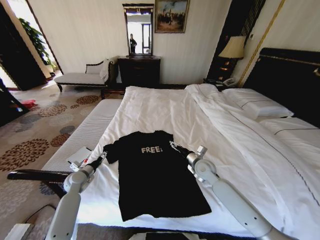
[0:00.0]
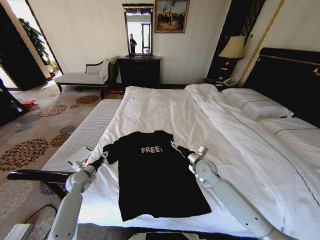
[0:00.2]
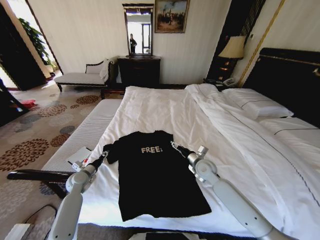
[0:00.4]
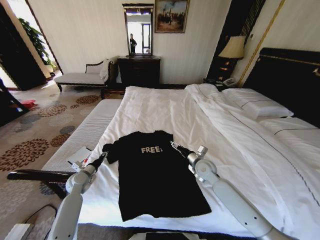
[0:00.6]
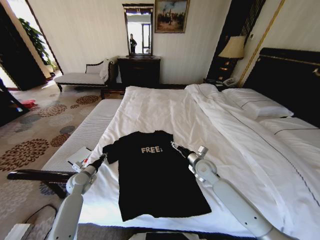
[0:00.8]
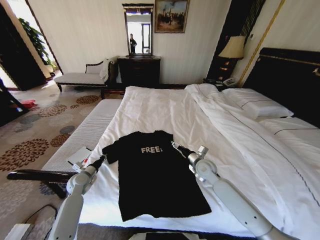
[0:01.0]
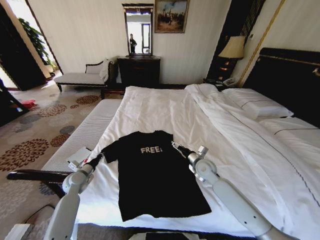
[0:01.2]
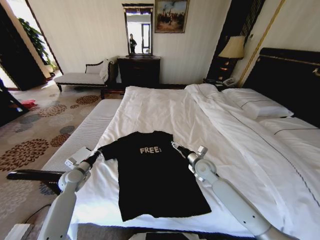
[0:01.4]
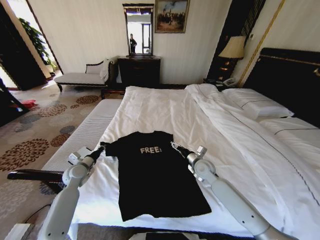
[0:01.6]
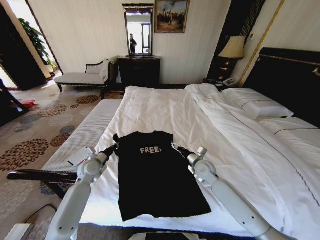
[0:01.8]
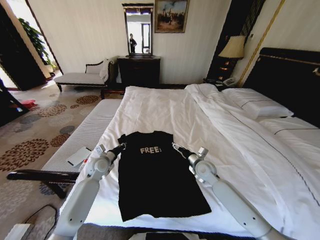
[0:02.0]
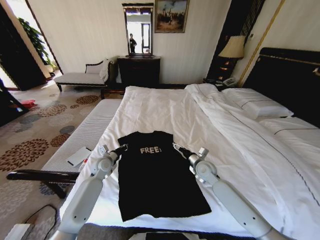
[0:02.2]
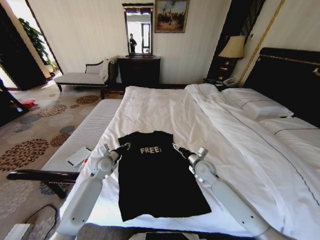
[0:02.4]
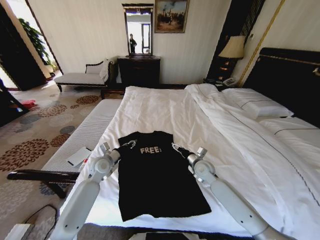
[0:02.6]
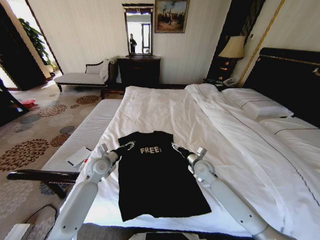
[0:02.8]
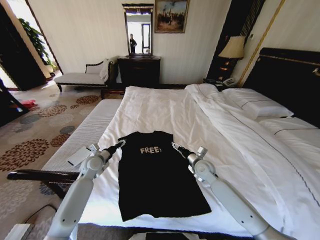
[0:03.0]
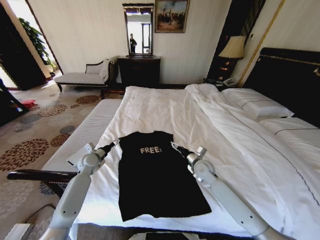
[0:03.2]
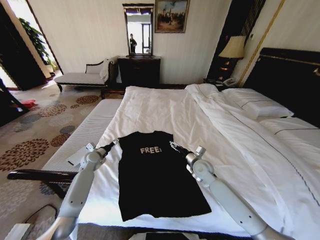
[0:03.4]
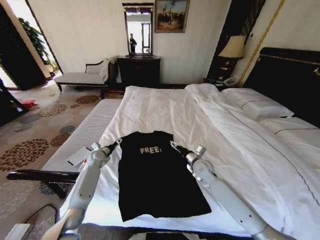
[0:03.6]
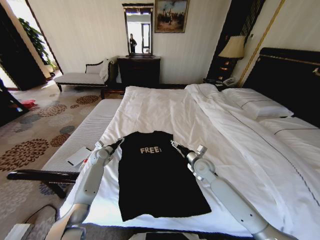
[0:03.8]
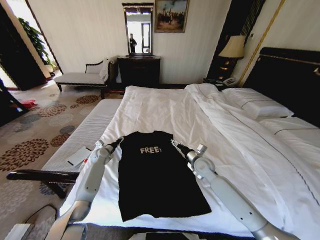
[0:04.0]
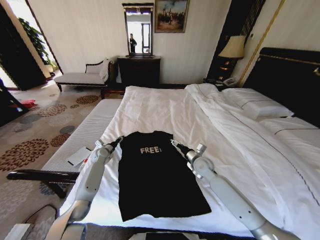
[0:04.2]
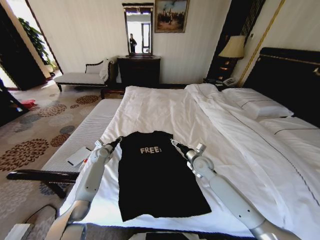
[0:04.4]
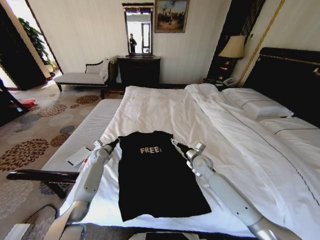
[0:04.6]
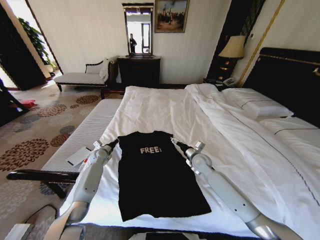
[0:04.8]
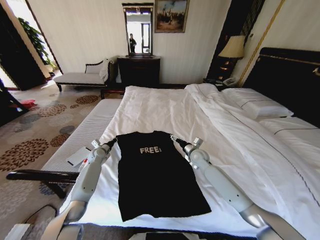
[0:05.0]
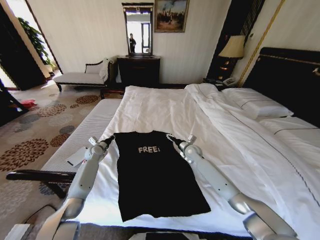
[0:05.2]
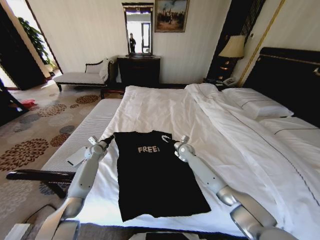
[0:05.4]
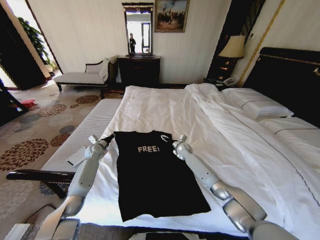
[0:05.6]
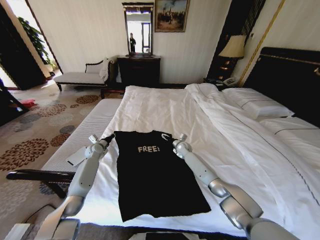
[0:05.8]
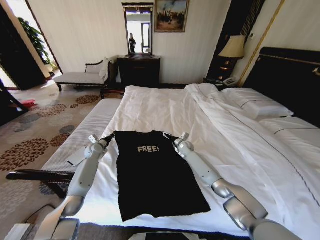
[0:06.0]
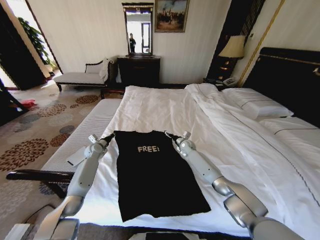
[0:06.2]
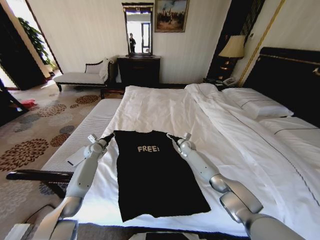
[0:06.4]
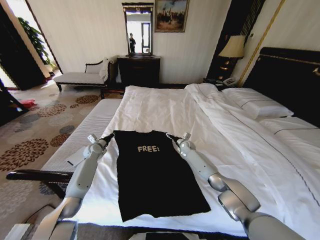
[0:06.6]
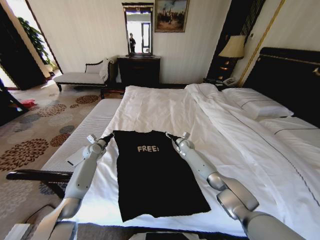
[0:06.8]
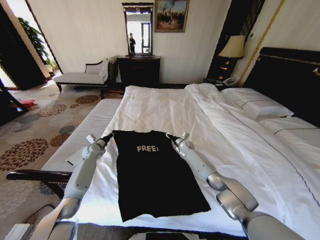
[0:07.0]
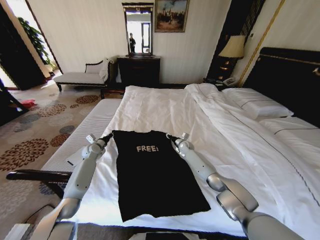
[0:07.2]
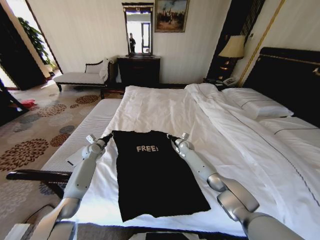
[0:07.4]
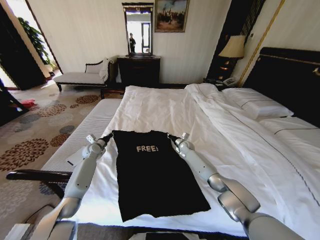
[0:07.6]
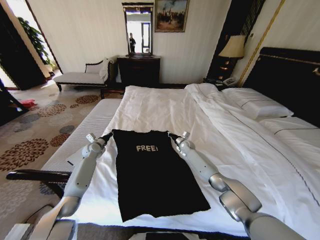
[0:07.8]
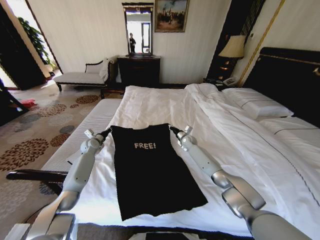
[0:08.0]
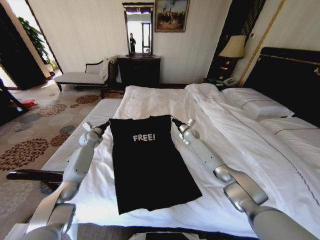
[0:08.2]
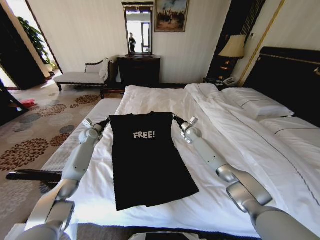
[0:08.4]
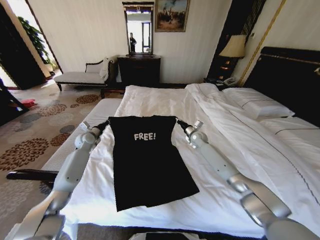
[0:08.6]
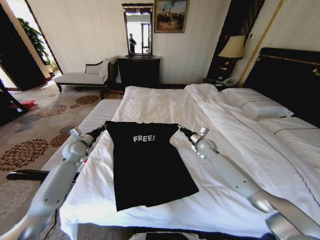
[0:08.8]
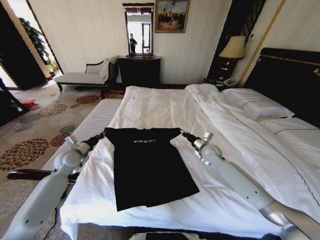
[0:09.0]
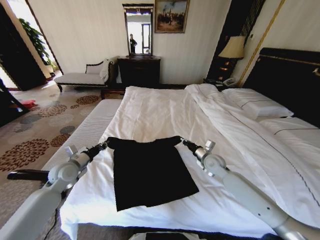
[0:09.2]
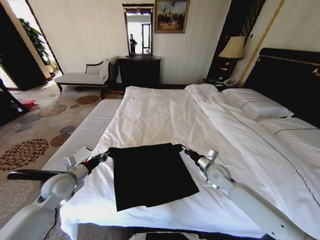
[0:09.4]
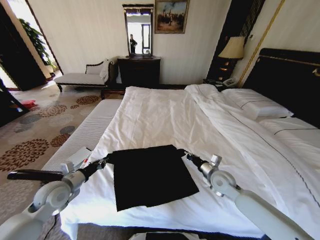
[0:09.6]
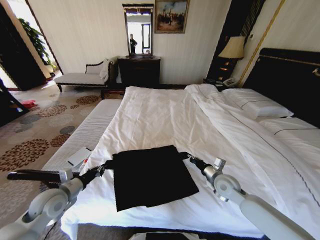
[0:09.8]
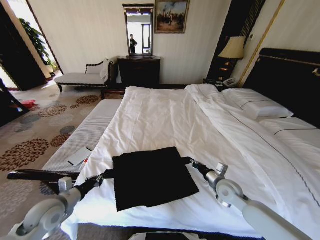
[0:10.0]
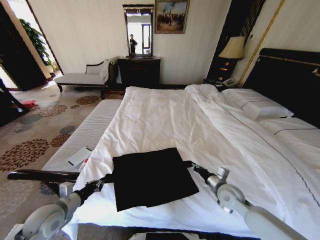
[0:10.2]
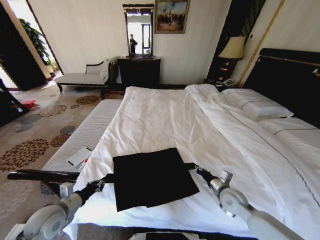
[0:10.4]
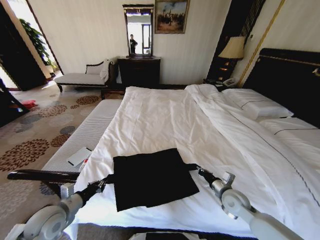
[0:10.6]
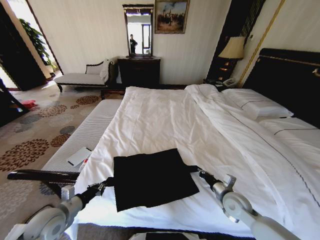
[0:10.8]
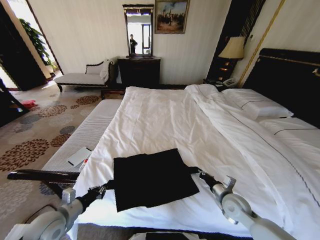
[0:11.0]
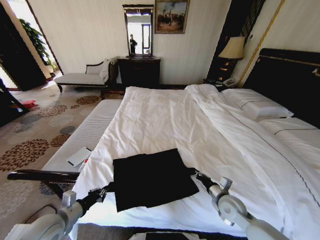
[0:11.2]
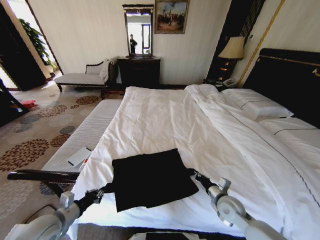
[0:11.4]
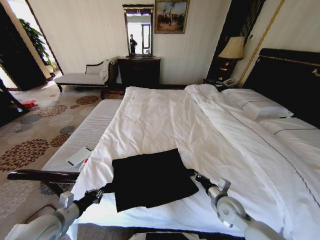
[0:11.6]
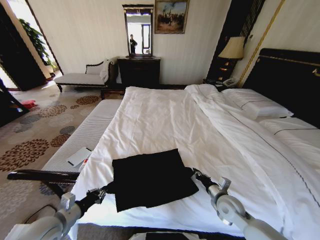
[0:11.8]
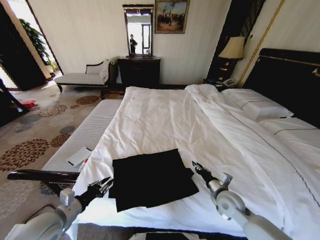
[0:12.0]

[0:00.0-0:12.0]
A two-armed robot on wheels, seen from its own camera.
Task of the whole recording: Fold the clothes on the bed.
0:00.0 to 0:01.6: The left gripper moves upward, about 5 cm, and closes.
0:01.6 to 0:03.0: The left gripper moves to the right, roughly 5 cm, and opens.
0:03.0 to 0:04.4: The left gripper travels forward and downward by approximately 10 cm, and closes its fingers.
0:04.4 to 0:06.0: The right gripper goes approximately 15 cm forward.
0:06.0 to 0:07.6: The right gripper closes up.
0:07.6 to 0:09.0: The right gripper travels backward, upward and to the right by some 20 cm. The left gripper moves backward and upward, roughly 15 cm.
0:09.0 to 0:10.4: Both grippers move backward, roughly 20 cm.
0:10.4 to 0:12.0: The grippers move only a little.

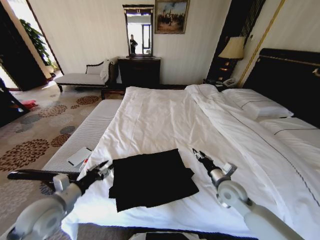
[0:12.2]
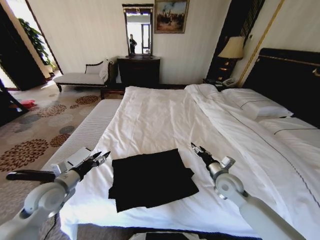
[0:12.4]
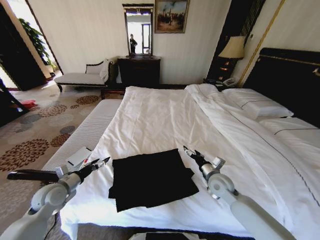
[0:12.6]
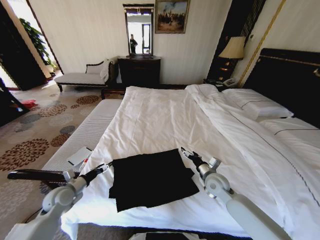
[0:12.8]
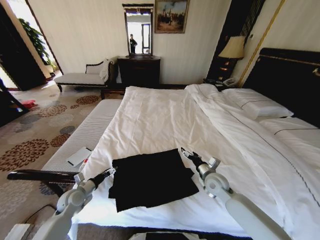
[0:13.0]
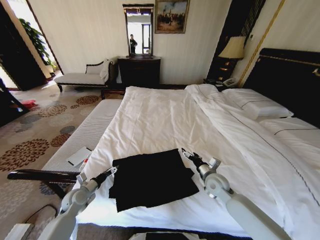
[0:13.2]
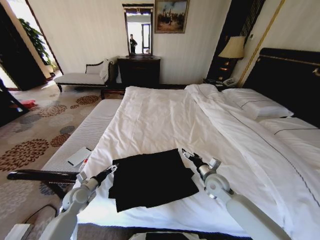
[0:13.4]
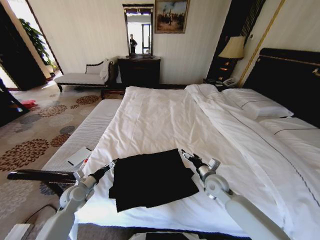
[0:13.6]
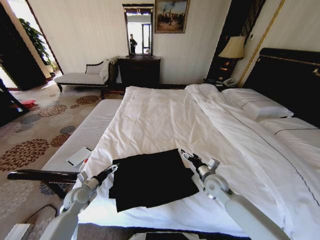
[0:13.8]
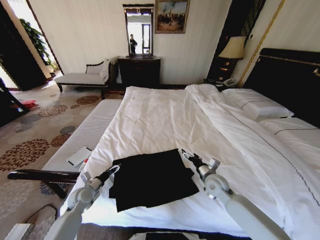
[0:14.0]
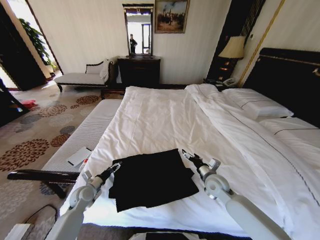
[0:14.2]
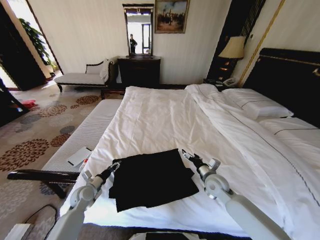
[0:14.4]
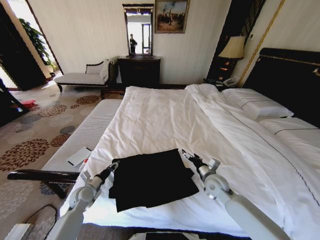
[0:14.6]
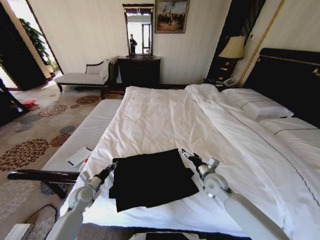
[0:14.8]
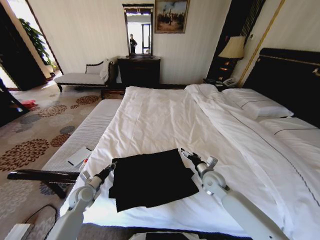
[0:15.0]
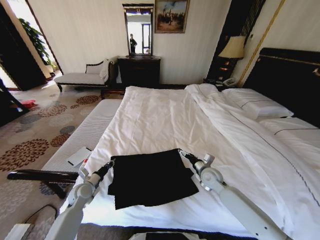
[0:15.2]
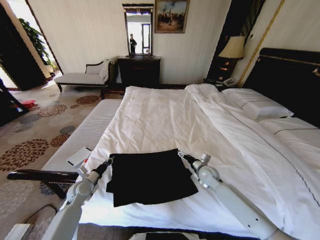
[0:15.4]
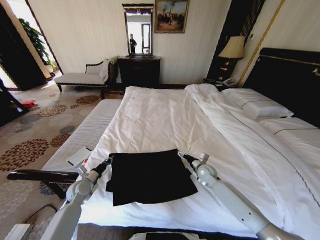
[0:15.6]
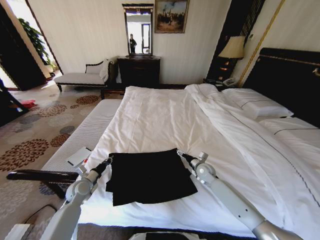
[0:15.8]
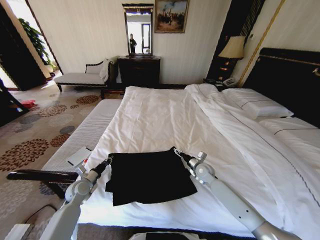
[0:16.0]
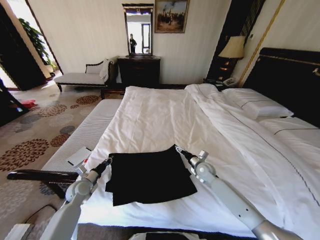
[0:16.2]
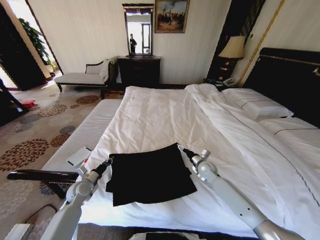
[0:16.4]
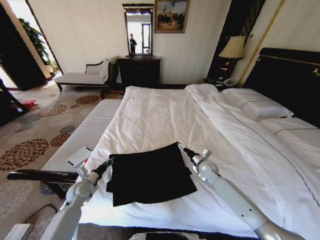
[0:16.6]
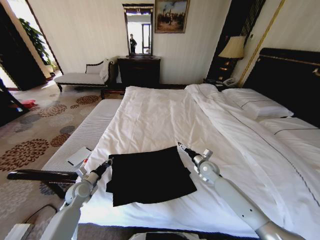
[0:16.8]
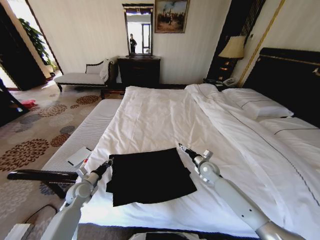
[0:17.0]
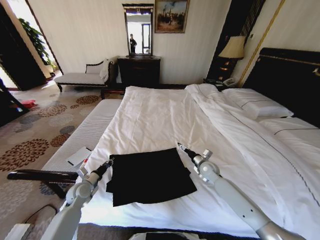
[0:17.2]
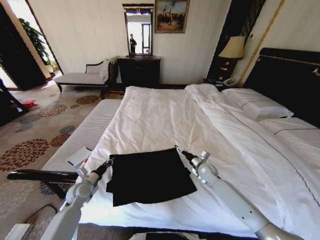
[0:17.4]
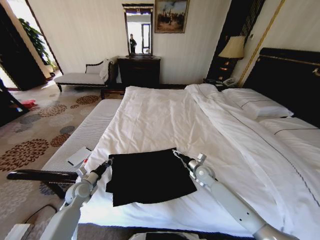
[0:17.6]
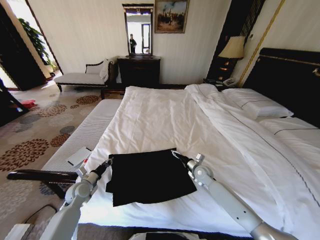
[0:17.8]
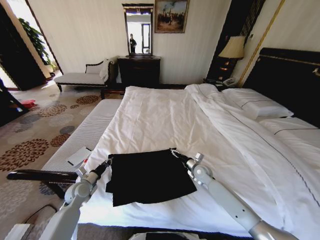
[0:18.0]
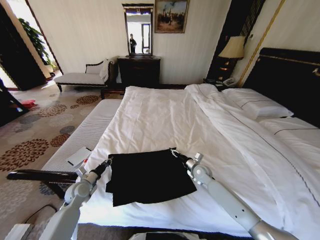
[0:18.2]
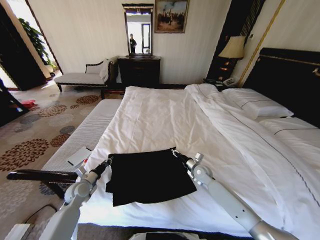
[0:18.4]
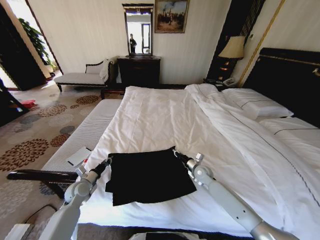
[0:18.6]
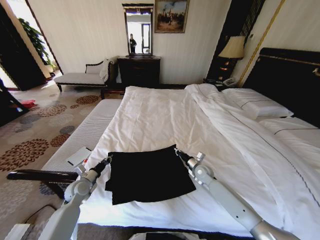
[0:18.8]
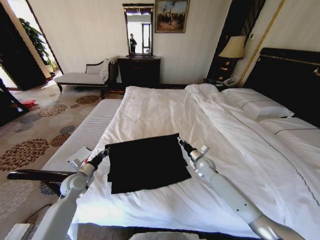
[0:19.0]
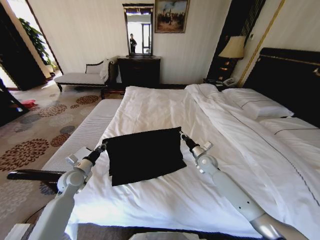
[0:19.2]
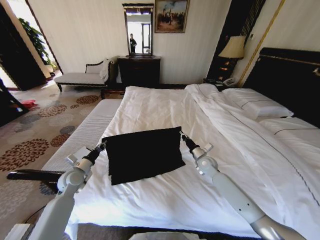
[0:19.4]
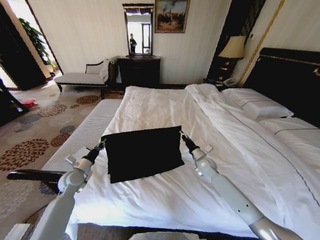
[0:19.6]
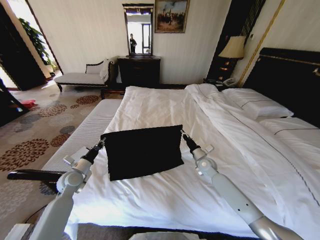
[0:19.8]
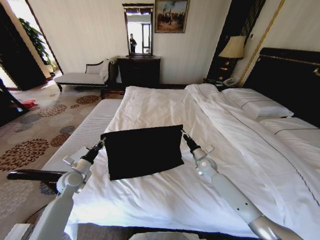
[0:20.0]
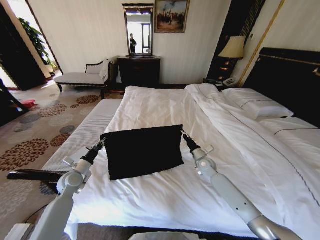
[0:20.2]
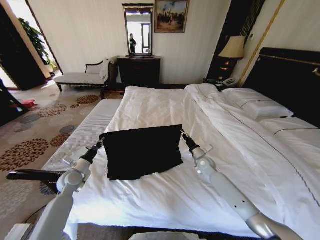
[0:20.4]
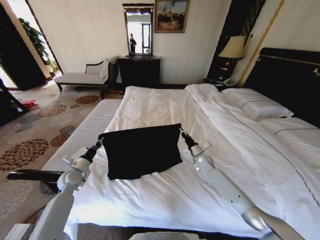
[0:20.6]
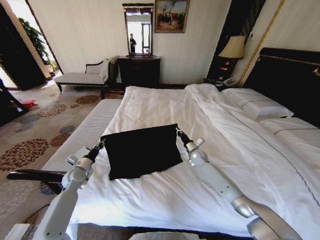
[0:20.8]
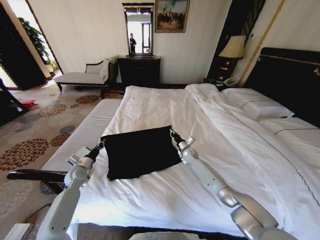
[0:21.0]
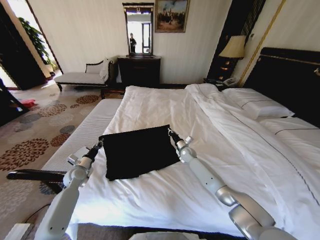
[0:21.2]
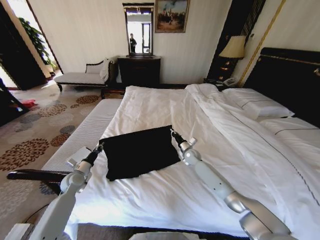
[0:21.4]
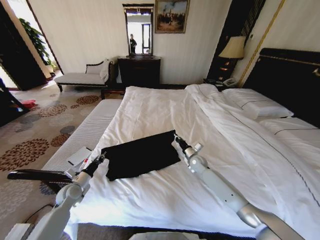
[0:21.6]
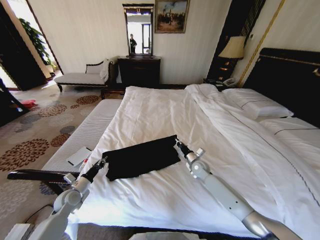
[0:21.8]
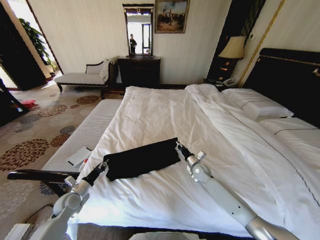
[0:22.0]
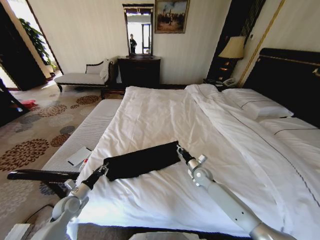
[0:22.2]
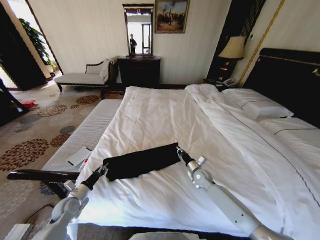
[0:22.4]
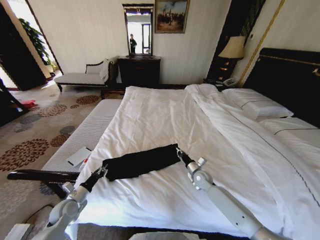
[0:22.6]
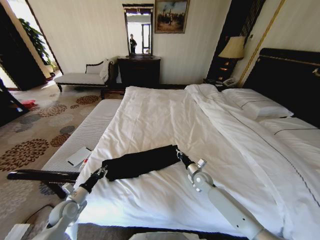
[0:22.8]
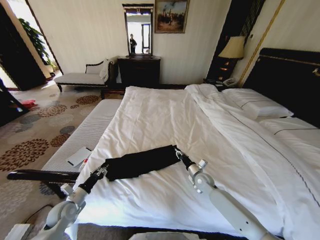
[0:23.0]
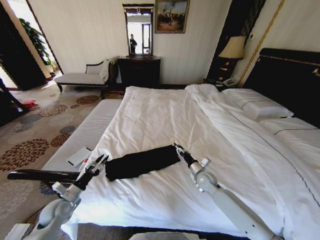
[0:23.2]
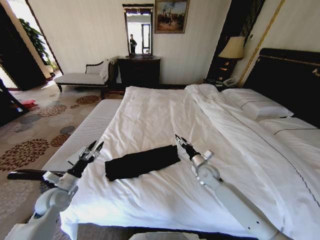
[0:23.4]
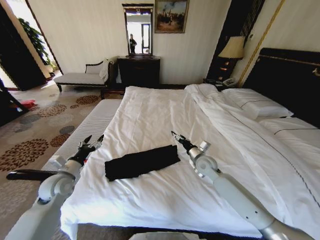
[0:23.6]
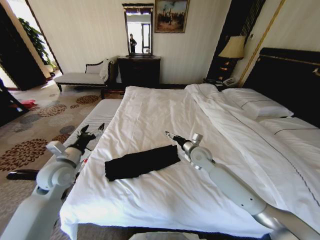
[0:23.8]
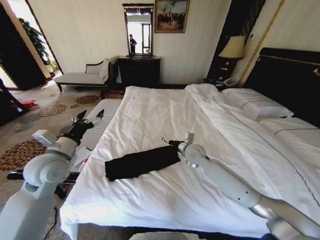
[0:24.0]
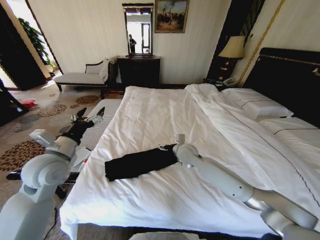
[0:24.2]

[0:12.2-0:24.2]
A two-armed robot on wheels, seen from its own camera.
Task of the whole recording: Fold the clothes on the bed.
0:12.2 to 0:13.8: The right gripper is displaced forward by some 5 cm, and opens. The left gripper travels downward and forward by some 20 cm, and opens its fingers.
0:13.8 to 0:15.2: The left gripper closes up.
0:15.2 to 0:16.6: The right gripper travels forward by approximately 5 cm.
0:16.6 to 0:18.2: The right gripper closes up.
0:18.2 to 0:19.8: The left gripper travels upward by roughly 5 cm, while the right gripper closes up.
0:19.8 to 0:21.2: The right gripper heads forward and to the left, covering about 10 cm. Meanwhile the left gripper ends up approximately 5 cm from where it was.
0:21.2 to 0:22.6: Both grippers move backward, about 15 cm.
0:22.6 to 0:24.2: The left gripper is displaced upward by roughly 30 cm, and opens its fingers. Meanwhile the right gripper shifts about 20 cm upward and to the left, and opens up.
